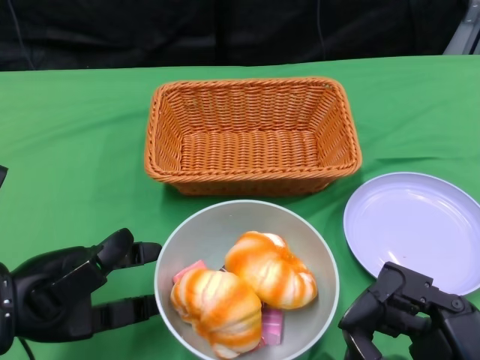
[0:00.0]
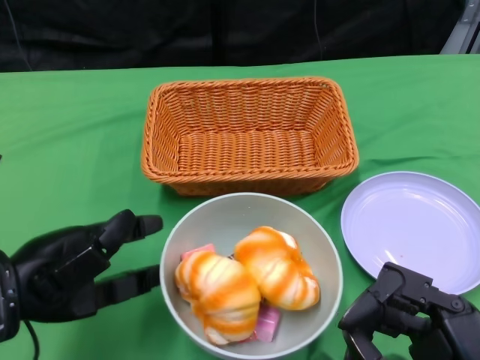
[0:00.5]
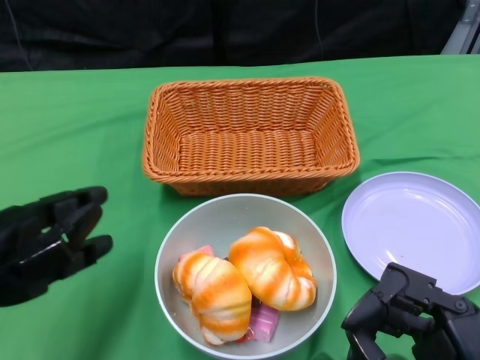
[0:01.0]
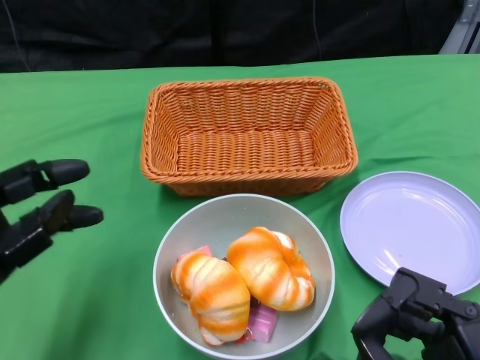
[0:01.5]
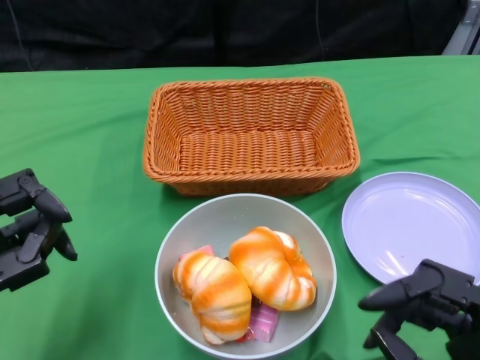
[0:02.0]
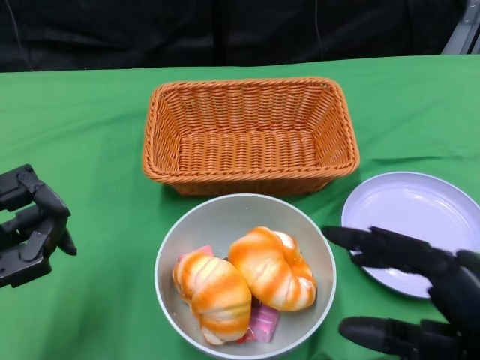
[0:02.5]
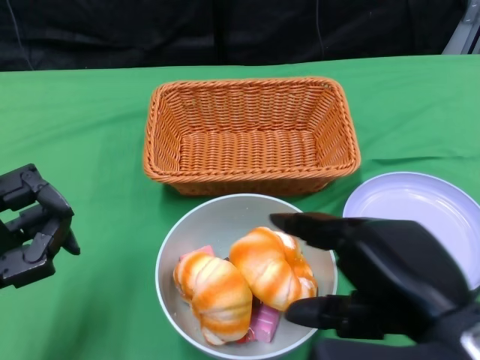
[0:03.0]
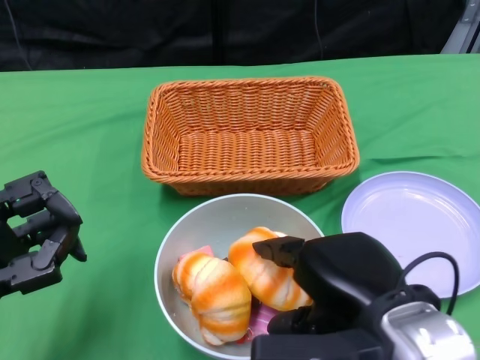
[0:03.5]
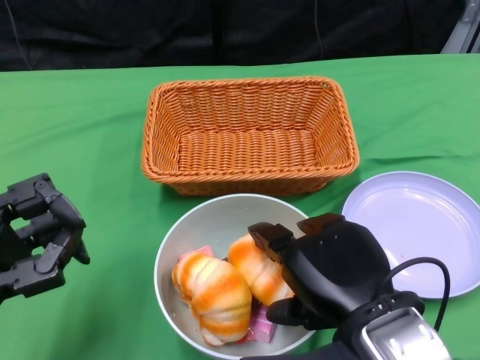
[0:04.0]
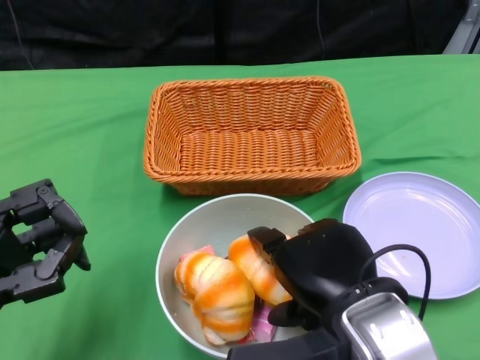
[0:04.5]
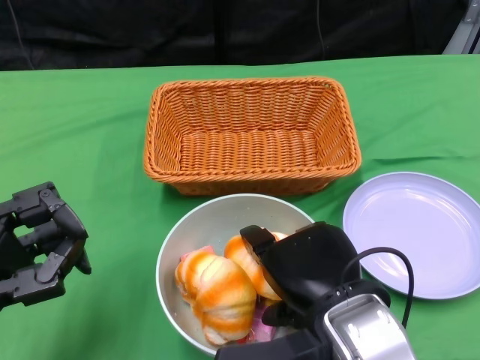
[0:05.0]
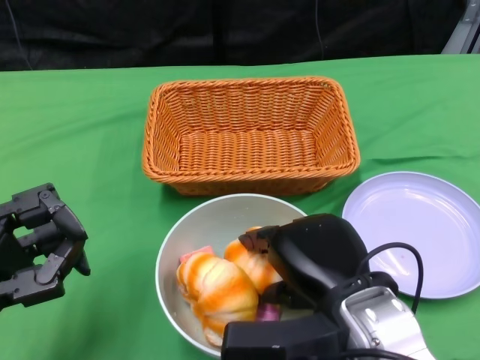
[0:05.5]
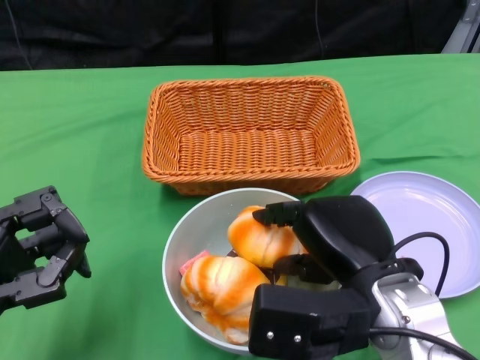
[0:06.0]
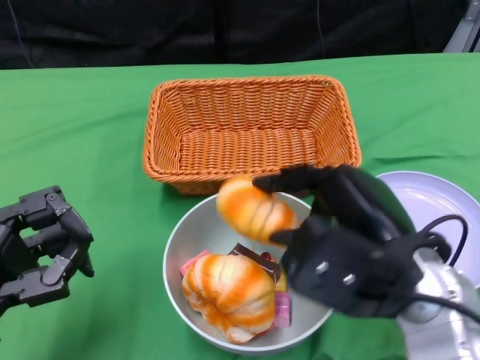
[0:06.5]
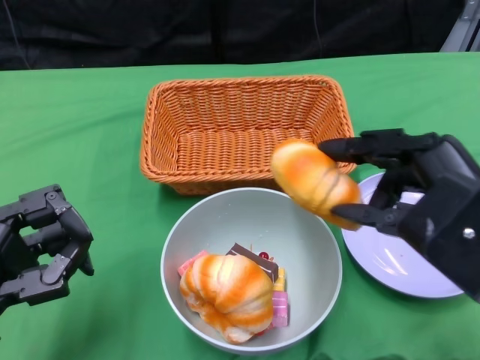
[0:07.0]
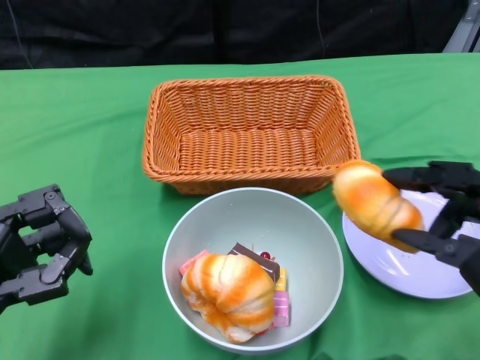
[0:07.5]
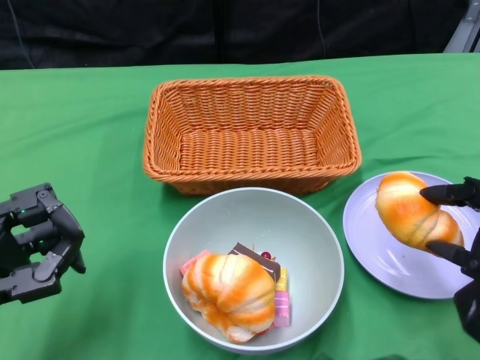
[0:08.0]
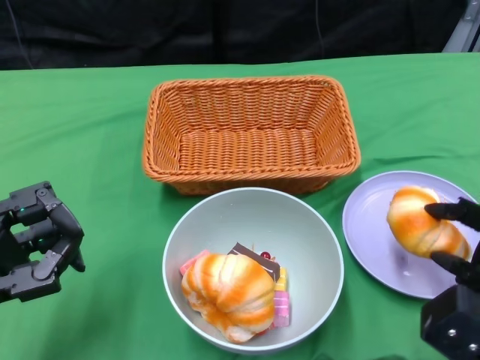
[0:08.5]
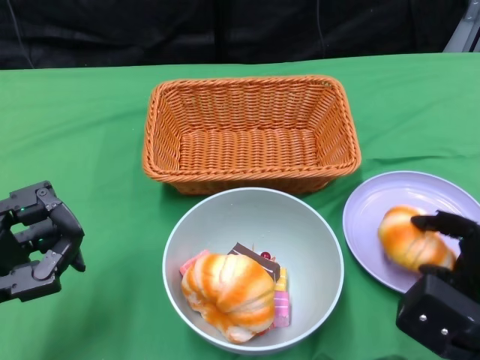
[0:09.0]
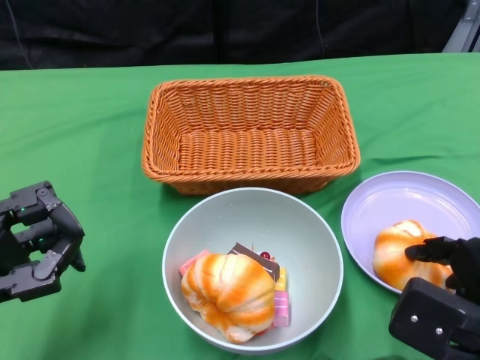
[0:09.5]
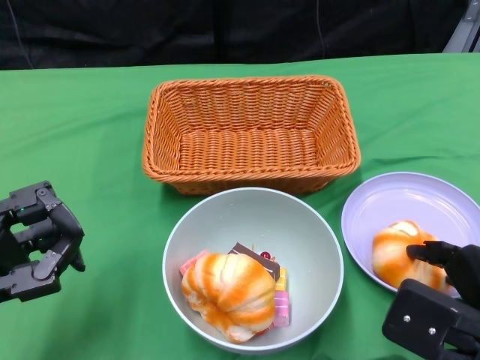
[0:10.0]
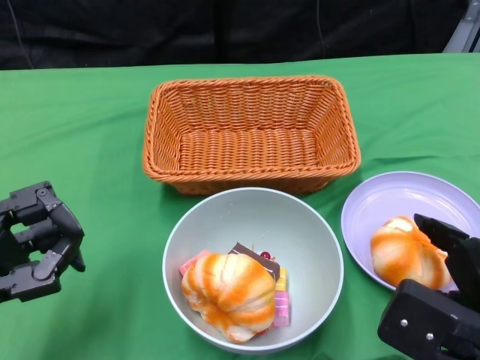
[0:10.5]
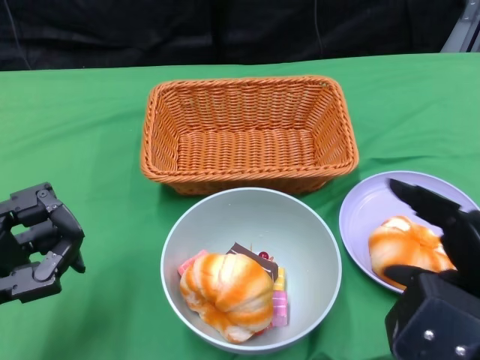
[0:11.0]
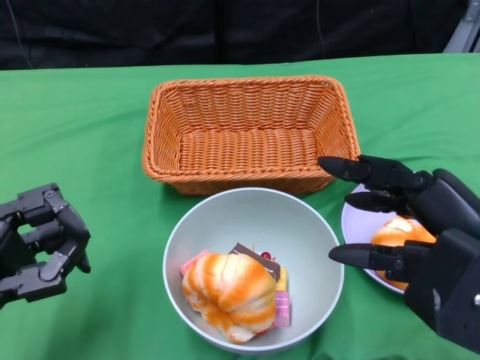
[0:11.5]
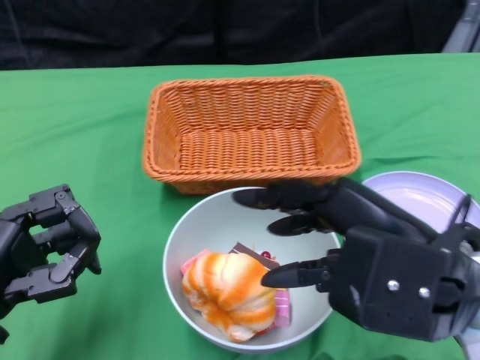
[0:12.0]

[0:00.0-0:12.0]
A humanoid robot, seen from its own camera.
Step, 0:01.0 to 0:10.5: Pick up the bread with the right gripper and place it on the plate.
0:02.0 to 0:04.0: The right hand is displaced to the left and forward by approximately 15 cm.
0:06.0 to 0:08.0: The right hand heads to the right, covering approximately 15 cm.
0:10.0 to 0:12.0: The right hand shifts approximately 15 cm upward and to the left.

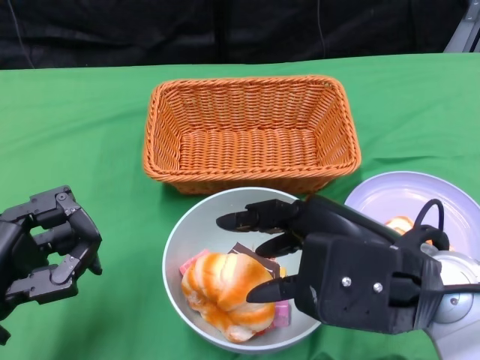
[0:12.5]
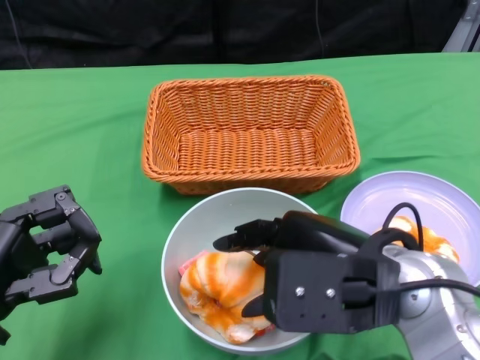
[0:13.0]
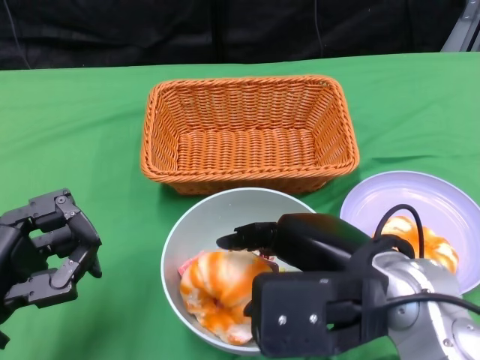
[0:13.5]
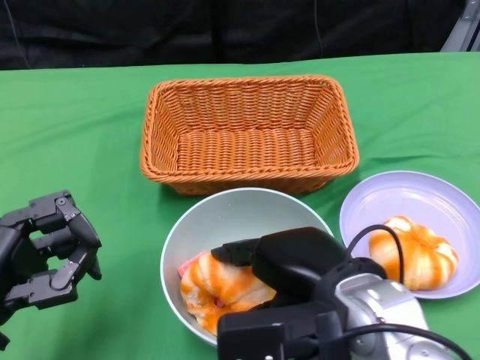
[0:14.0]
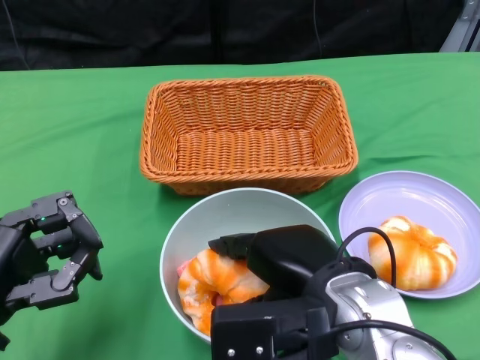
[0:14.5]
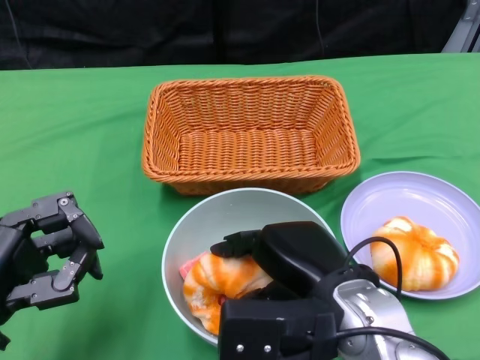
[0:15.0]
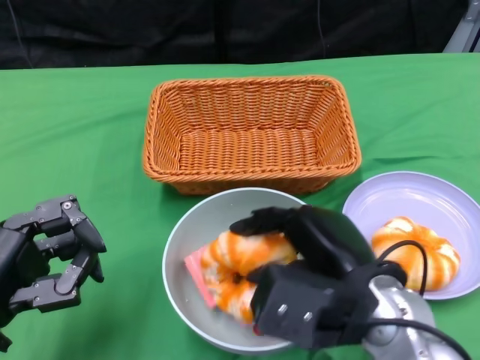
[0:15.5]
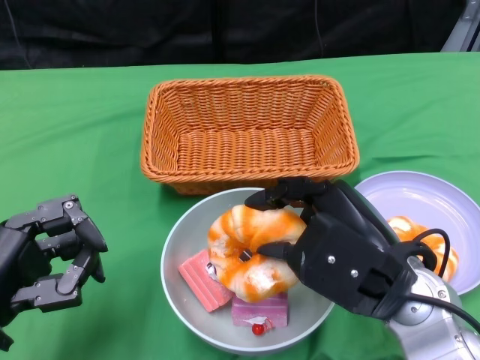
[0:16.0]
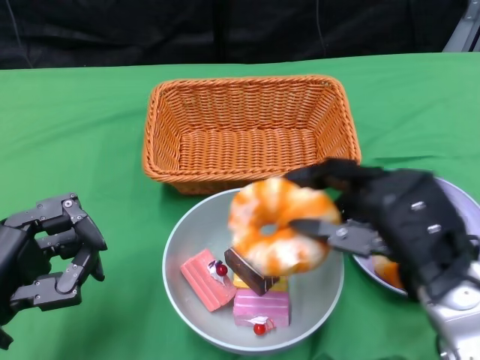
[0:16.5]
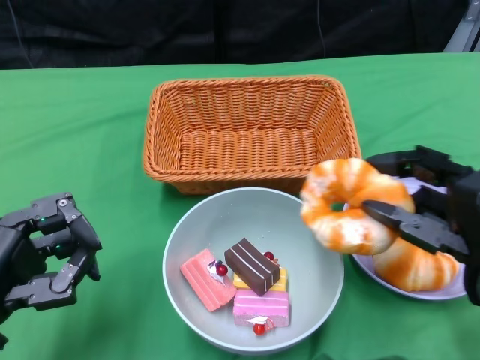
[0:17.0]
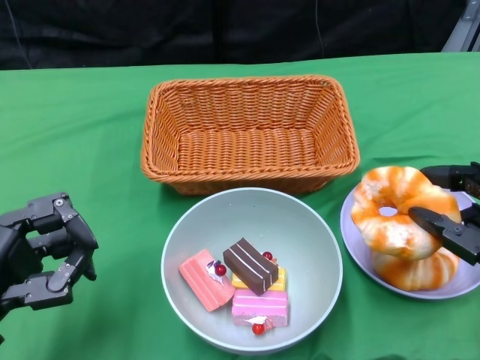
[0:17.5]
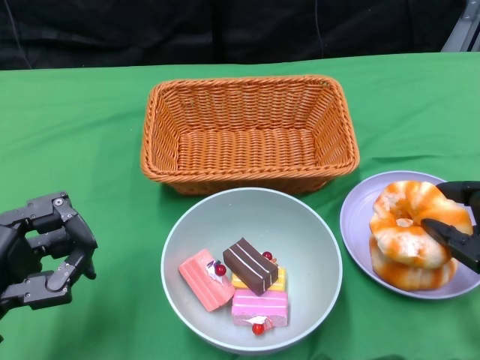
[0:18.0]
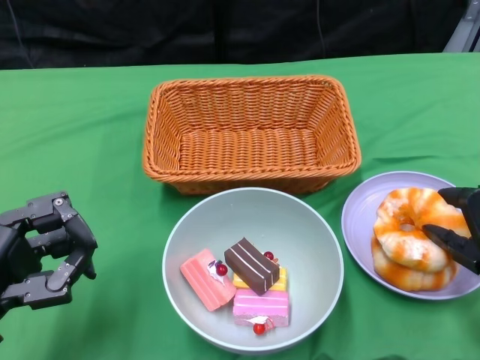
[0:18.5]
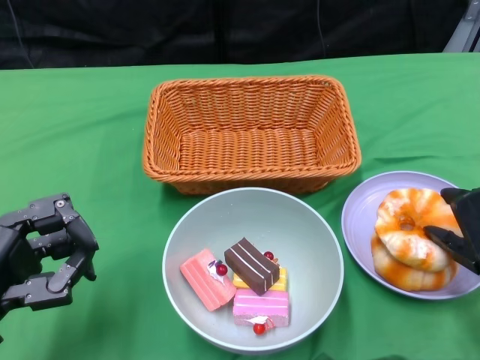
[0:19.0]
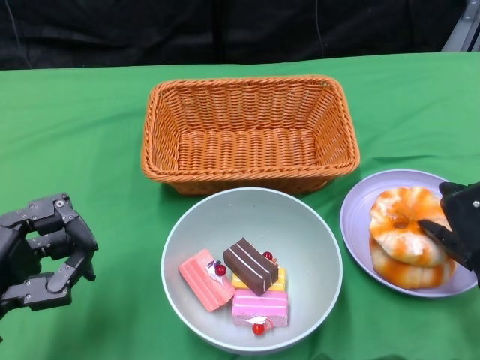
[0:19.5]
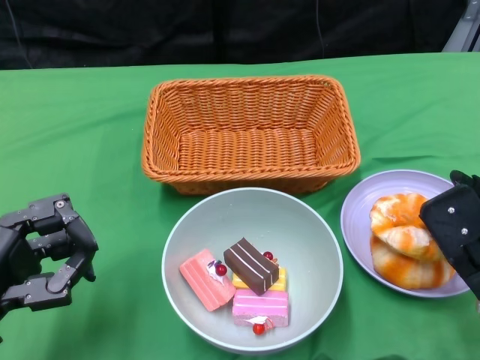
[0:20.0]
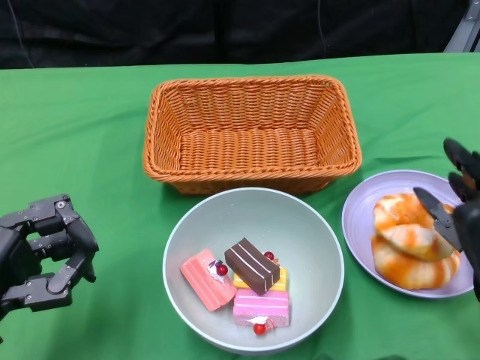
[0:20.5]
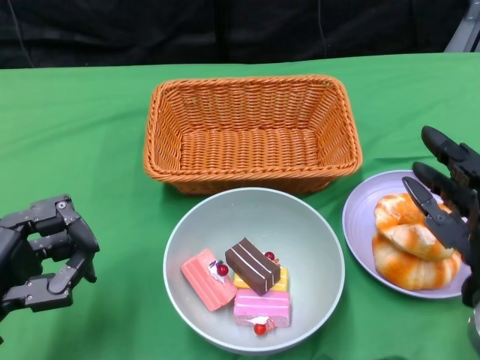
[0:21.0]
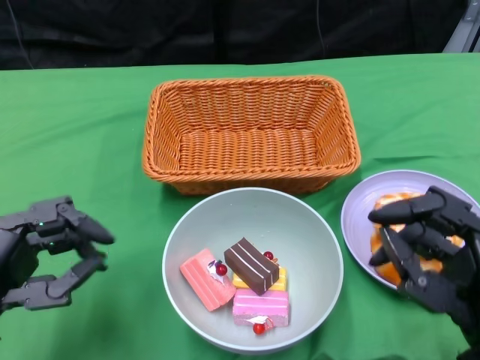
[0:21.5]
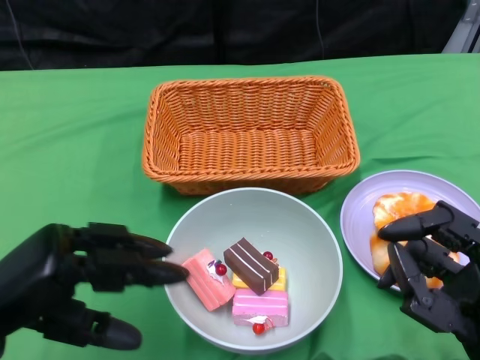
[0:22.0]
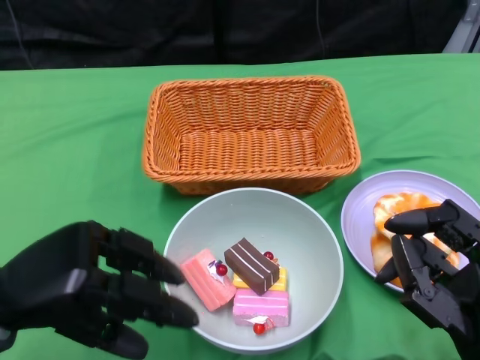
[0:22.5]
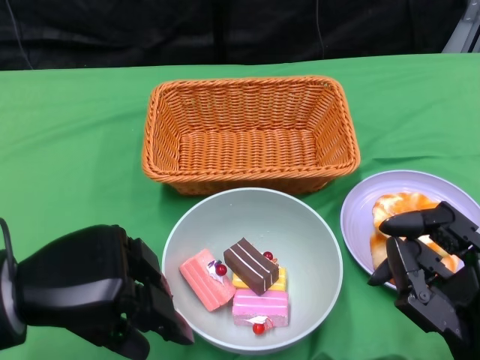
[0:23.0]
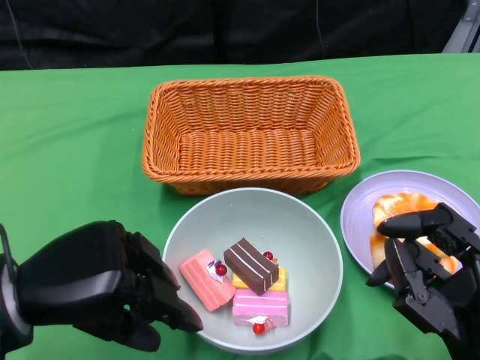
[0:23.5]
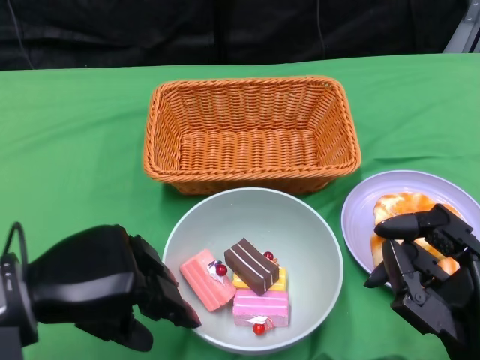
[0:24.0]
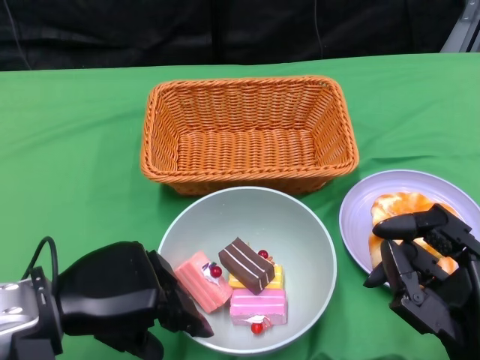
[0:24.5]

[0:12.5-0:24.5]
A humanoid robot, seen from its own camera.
Step, 0:12.5 to 0:20.0: Pick up the bread with the right gripper and place it on the plate.
0:12.5 to 0:14.5: The right hand travels to the left and downward by approximately 10 cm.
0:14.5 to 0:16.5: The right hand shifts approximately 10 cm to the right.
0:16.5 to 0:18.5: The right hand moves to the right and downward, roughly 10 cm.
0:18.5 to 0:20.5: There are only small adjustments of the hands.
0:20.5 to 0:22.5: The right hand shifts roughly 10 cm backward, while the left hand shifts by about 5 cm.

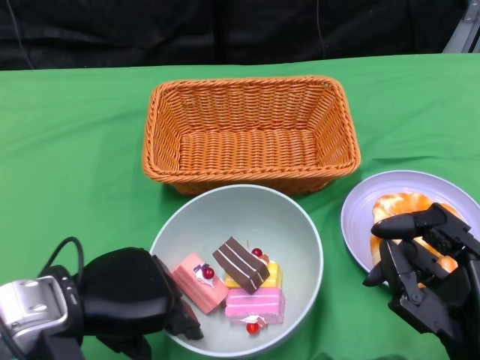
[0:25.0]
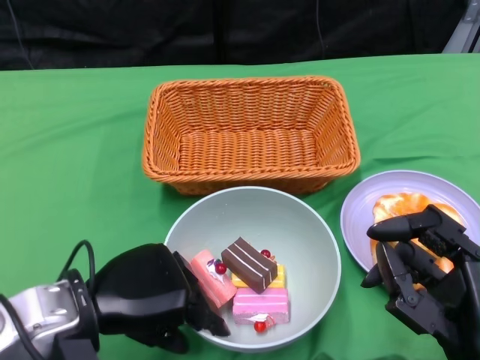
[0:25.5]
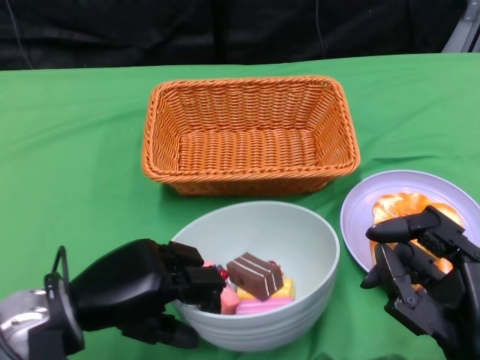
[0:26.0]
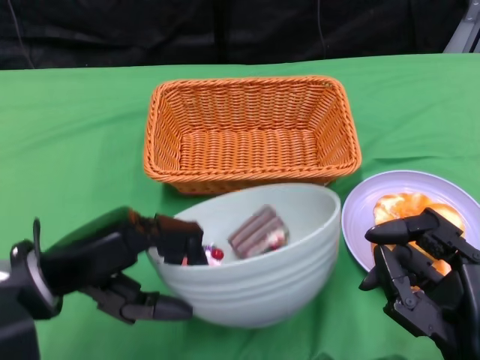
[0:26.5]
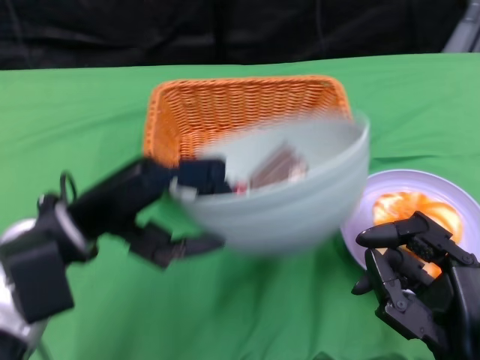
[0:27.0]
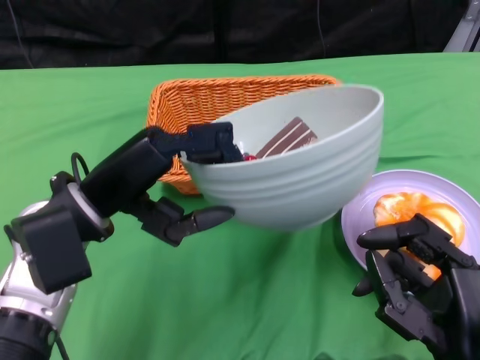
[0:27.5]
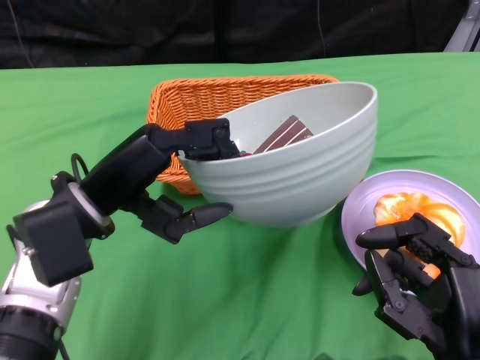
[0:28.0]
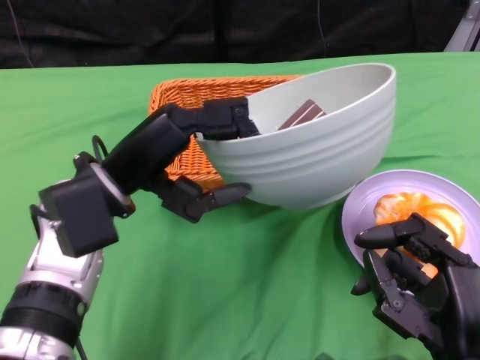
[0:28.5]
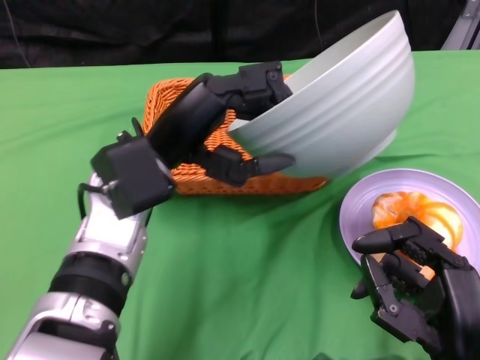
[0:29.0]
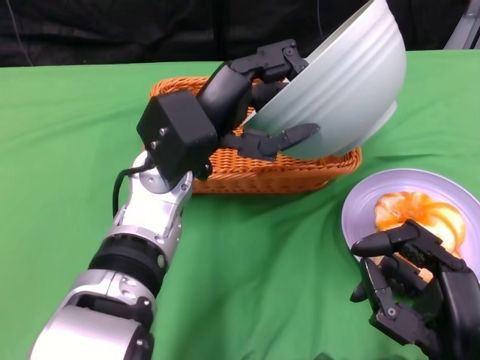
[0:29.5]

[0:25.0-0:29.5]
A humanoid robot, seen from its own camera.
0:25.0 to 0:27.0: The left hand moves roughly 5 cm.
0:27.0 to 0:29.5: The left hand travels to the right and forward by roughly 10 cm.
